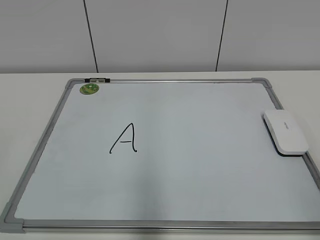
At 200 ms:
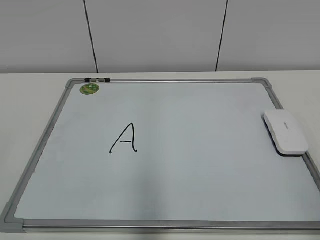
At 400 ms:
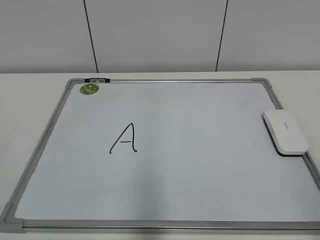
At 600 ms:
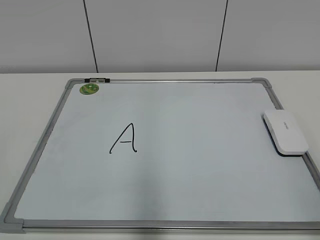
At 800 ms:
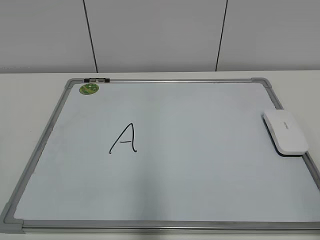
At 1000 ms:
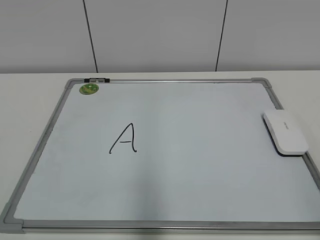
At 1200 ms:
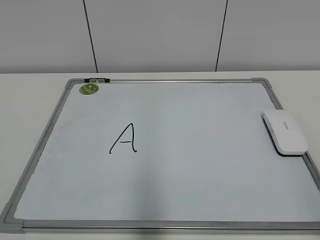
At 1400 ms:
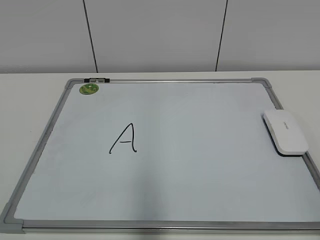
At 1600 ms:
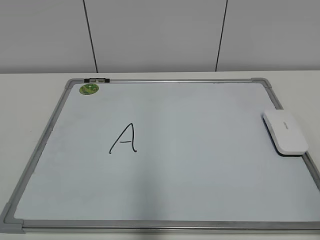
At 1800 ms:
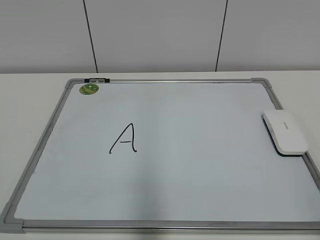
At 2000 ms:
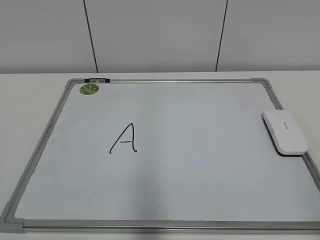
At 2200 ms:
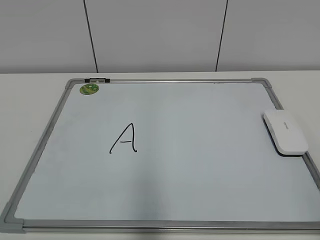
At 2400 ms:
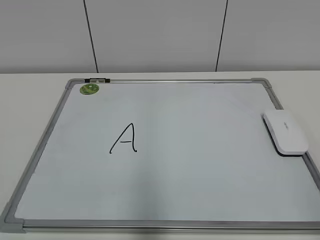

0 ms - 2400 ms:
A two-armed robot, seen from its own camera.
Task of the whole recording: pick up the eraser on the blackboard and erase the letter "a".
1200 ms - 2400 ms: Both grippers stay put.
